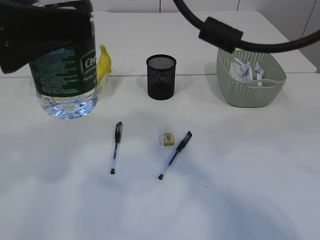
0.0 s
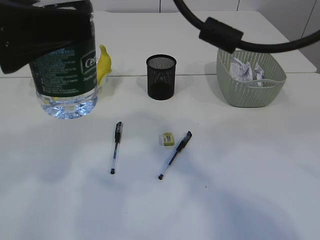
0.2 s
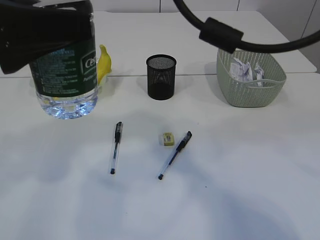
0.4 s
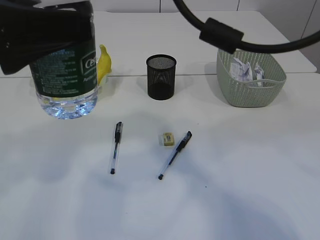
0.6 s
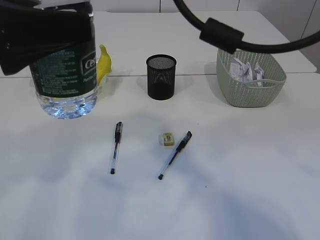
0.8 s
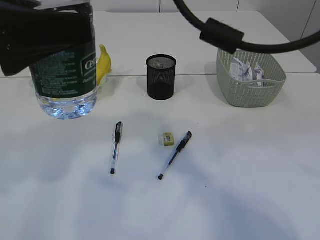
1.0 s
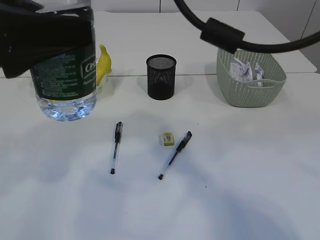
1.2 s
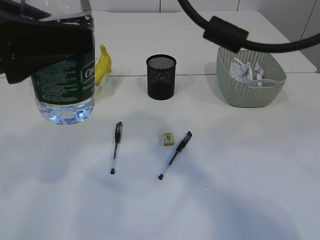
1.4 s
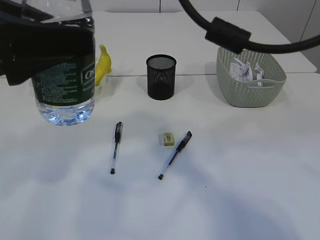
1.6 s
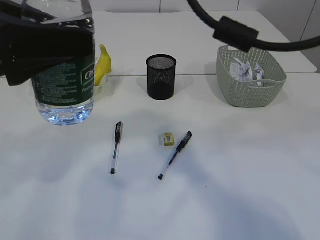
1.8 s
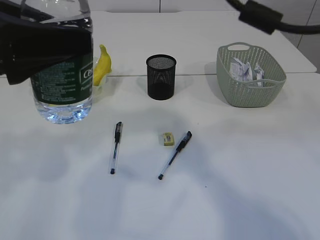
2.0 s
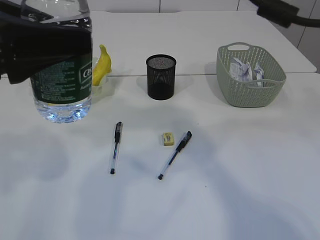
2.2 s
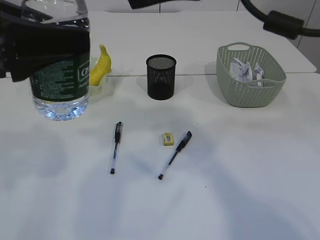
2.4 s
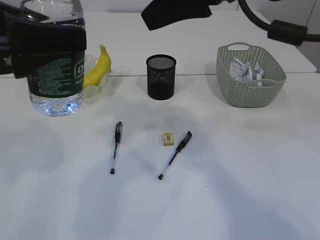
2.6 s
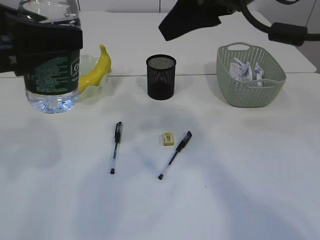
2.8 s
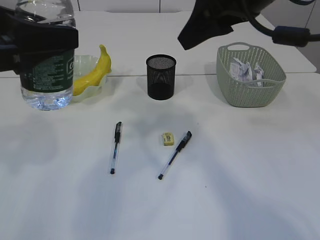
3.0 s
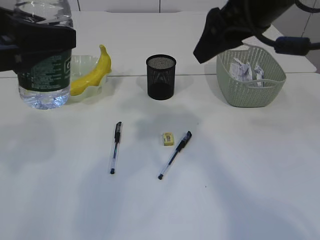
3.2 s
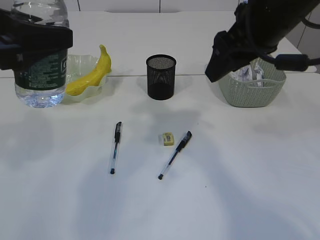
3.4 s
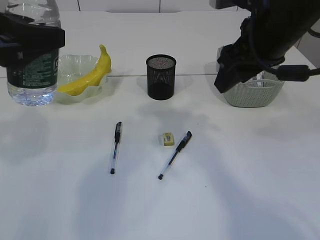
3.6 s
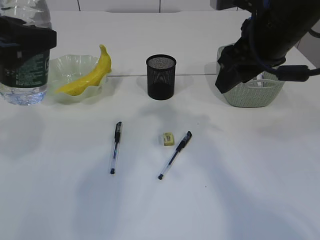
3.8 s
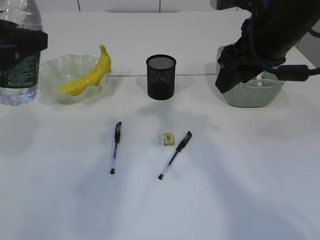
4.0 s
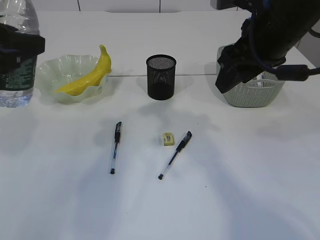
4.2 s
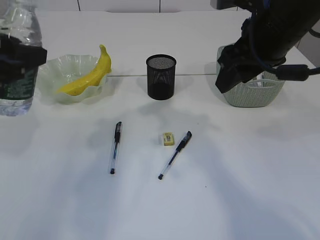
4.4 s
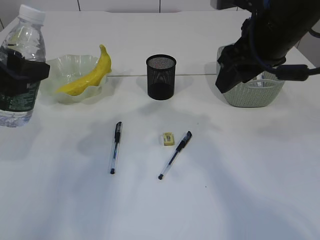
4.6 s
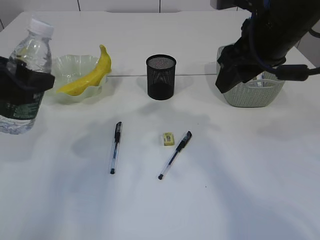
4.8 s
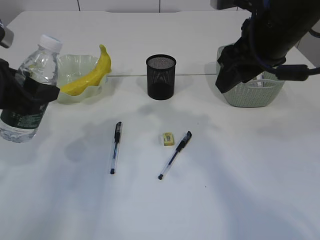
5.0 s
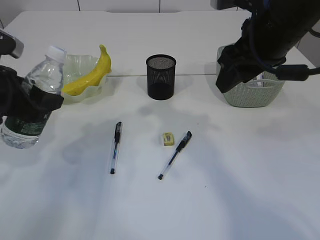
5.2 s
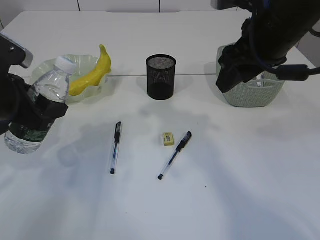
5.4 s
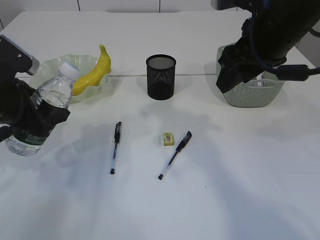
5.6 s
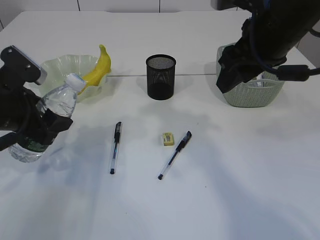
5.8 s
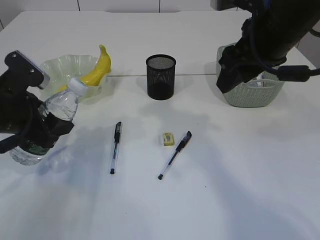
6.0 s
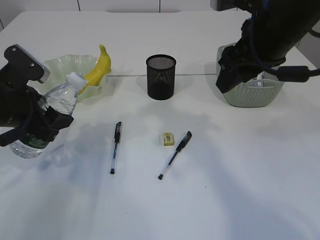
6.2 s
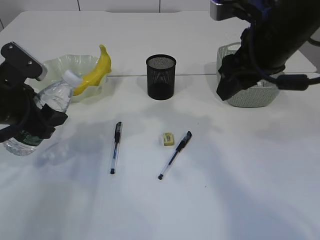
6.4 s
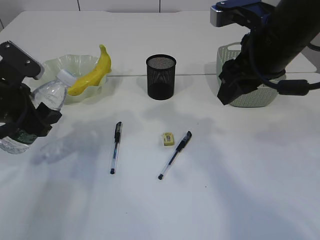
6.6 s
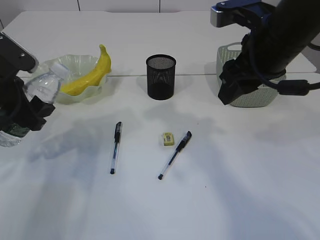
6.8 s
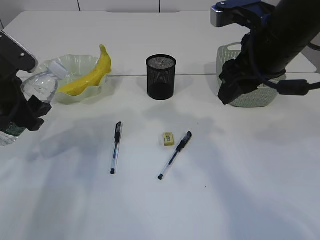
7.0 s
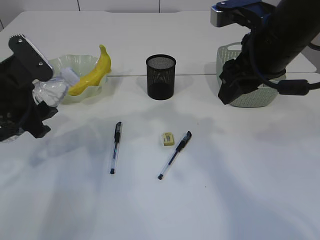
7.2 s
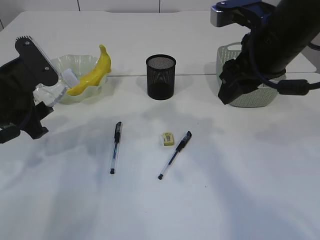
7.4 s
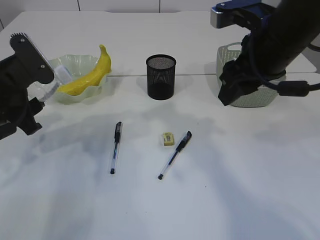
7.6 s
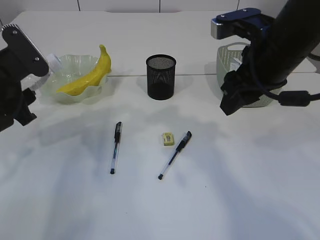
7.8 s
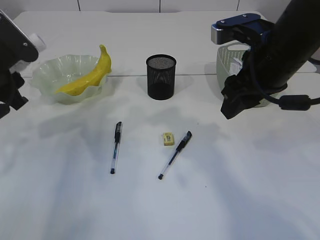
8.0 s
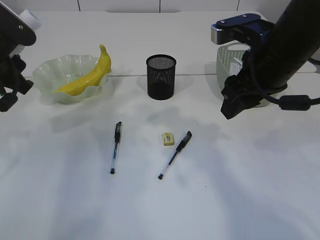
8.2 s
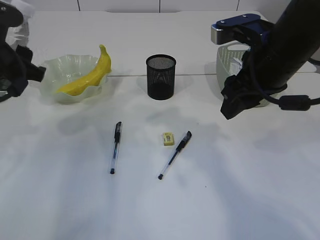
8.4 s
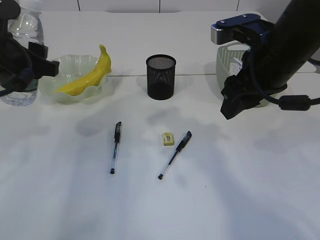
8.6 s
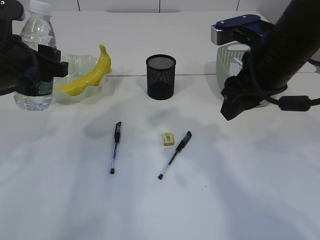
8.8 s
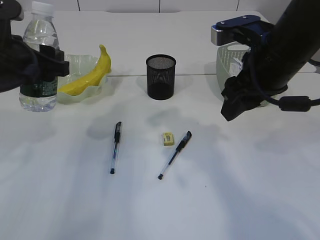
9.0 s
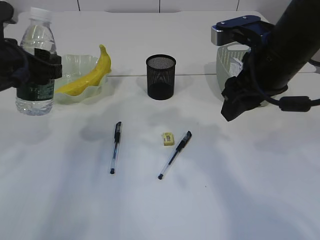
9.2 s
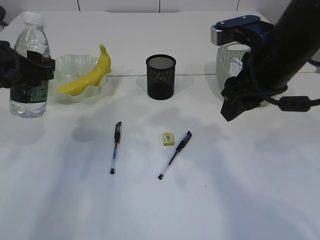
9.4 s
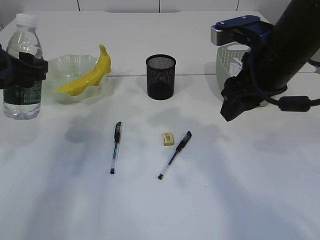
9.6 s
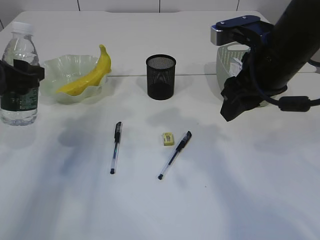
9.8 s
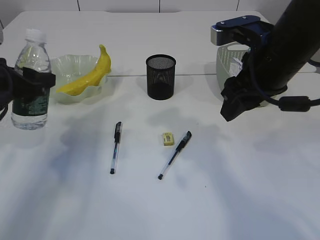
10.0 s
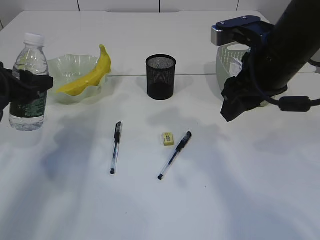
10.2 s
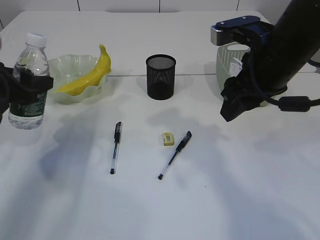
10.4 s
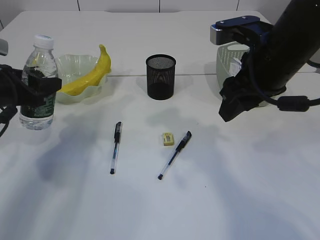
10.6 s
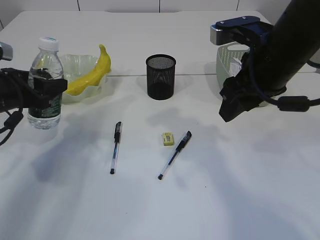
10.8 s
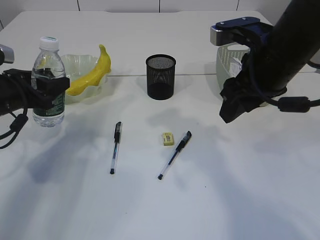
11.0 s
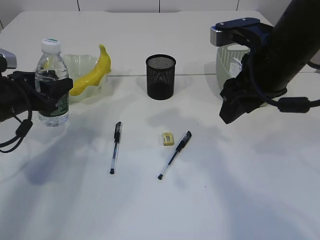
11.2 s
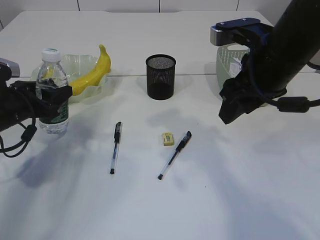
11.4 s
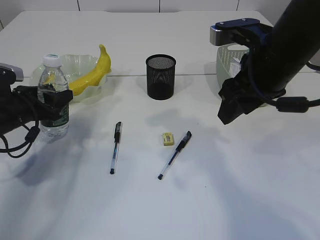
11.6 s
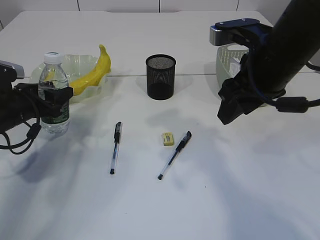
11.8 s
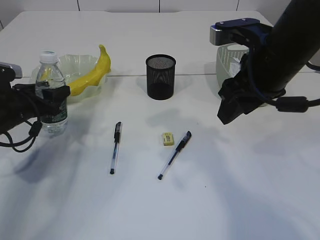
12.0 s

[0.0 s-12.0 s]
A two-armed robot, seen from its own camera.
Step, 0.0 to 2.0 s: transfer the bottle to the left arm.
0.0 to 1.6 s: The right gripper opens.
1.6 to 3.0 s: The right gripper is displaced to the right and forward by roughly 10 cm.
3.0 to 4.4 s: The right gripper heads downward, covering approximately 5 cm.
4.4 to 6.0 s: The left gripper is displaced downward by approximately 10 cm.
9.0 to 10.4 s: The left gripper travels to the left by about 5 cm.
10.4 to 12.0 s: The left gripper goes some 10 cm downward.

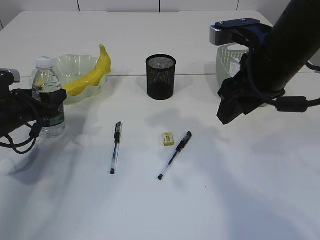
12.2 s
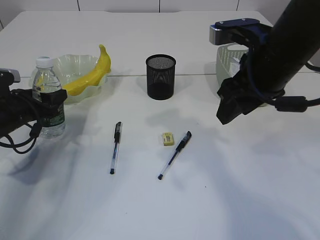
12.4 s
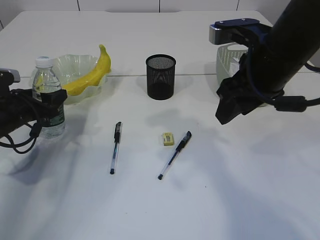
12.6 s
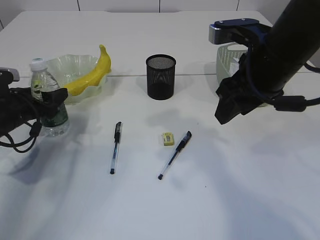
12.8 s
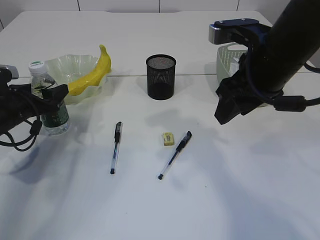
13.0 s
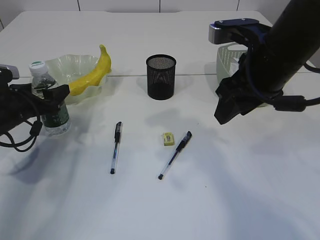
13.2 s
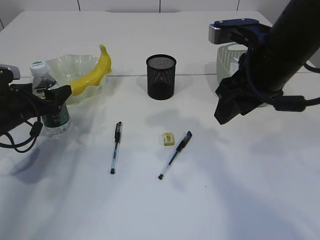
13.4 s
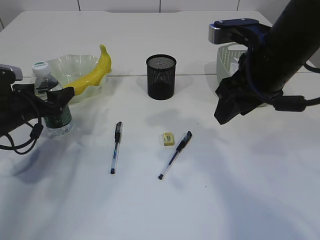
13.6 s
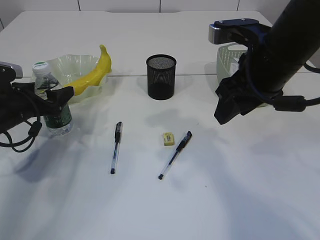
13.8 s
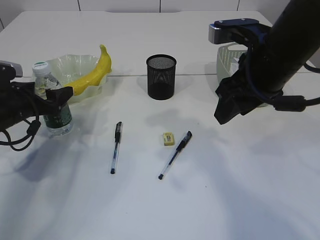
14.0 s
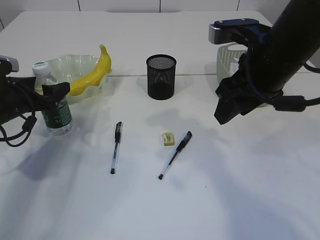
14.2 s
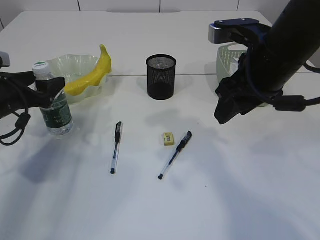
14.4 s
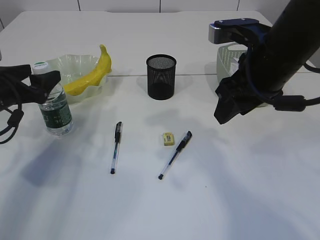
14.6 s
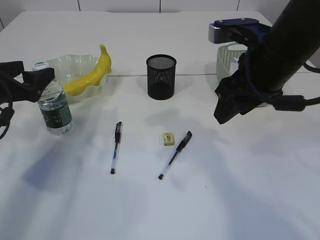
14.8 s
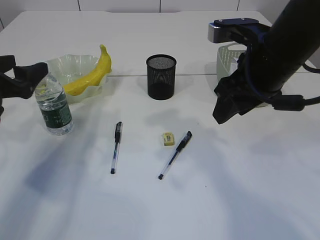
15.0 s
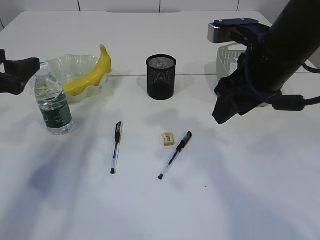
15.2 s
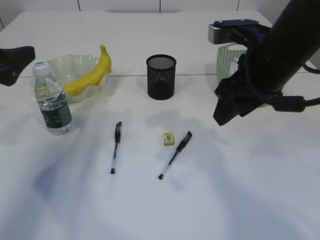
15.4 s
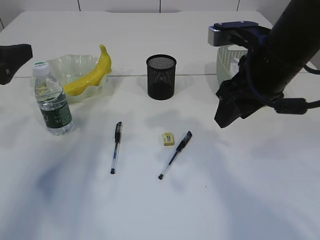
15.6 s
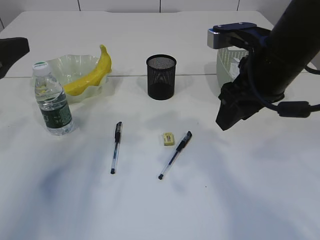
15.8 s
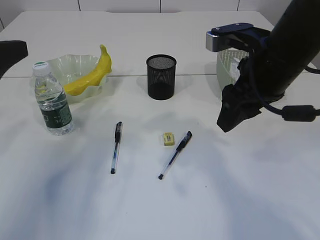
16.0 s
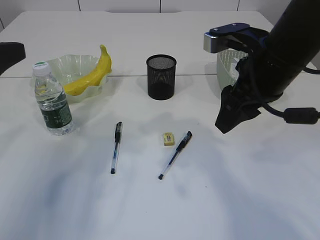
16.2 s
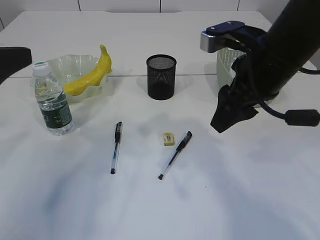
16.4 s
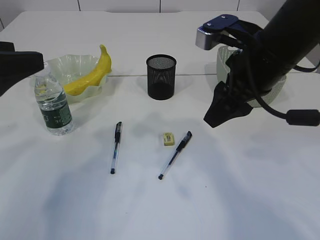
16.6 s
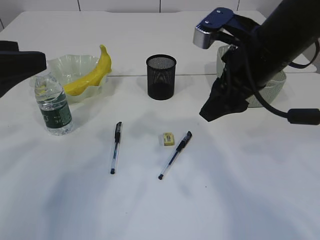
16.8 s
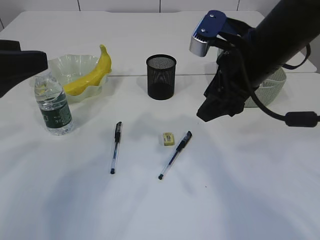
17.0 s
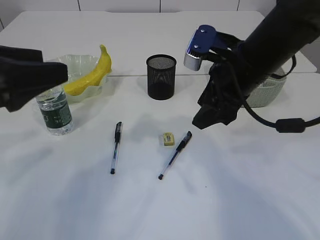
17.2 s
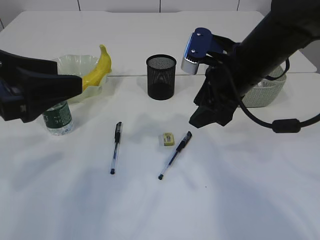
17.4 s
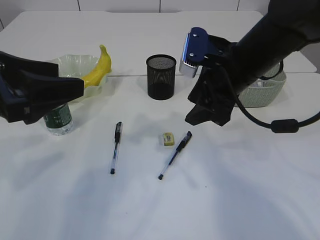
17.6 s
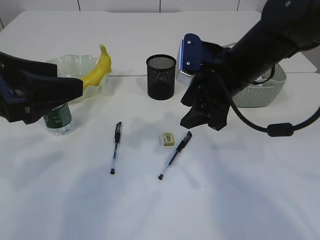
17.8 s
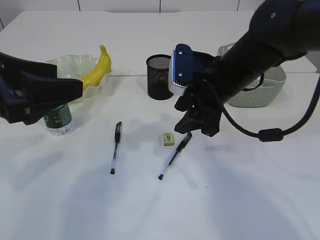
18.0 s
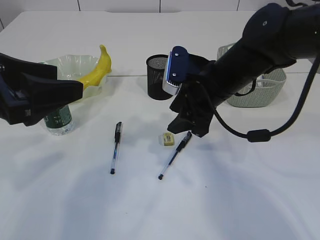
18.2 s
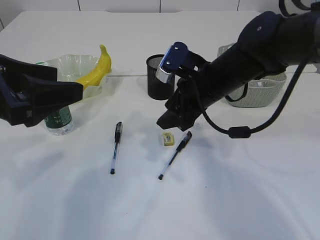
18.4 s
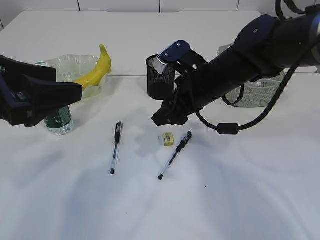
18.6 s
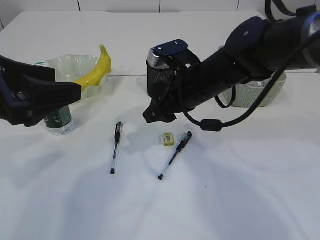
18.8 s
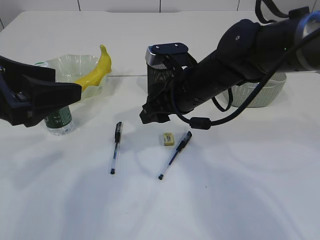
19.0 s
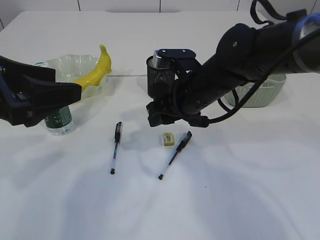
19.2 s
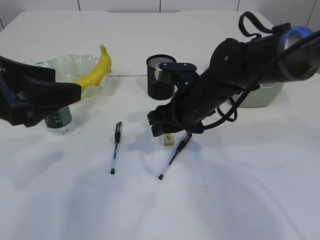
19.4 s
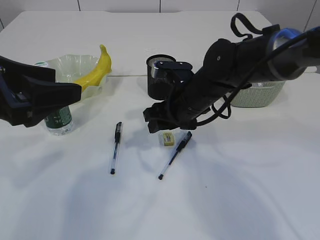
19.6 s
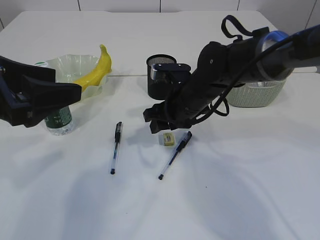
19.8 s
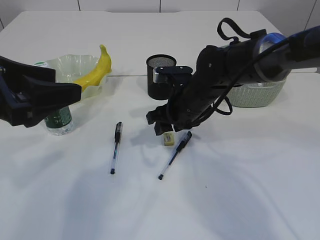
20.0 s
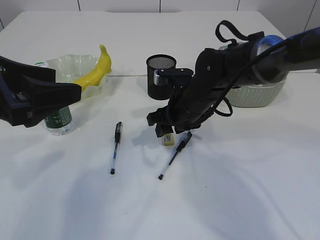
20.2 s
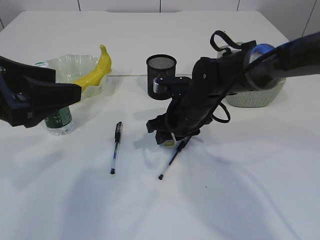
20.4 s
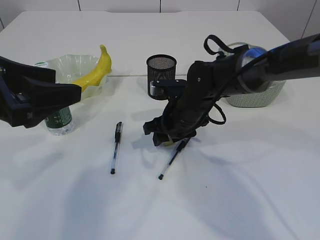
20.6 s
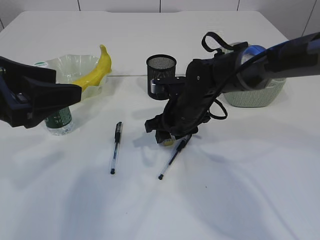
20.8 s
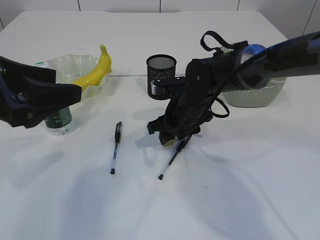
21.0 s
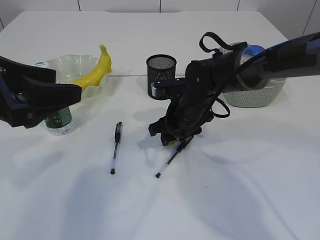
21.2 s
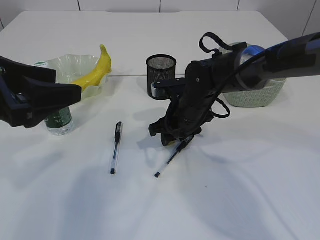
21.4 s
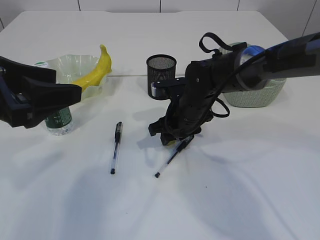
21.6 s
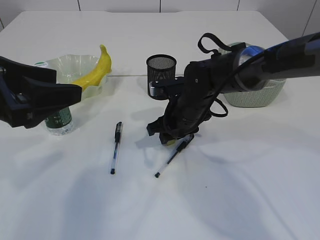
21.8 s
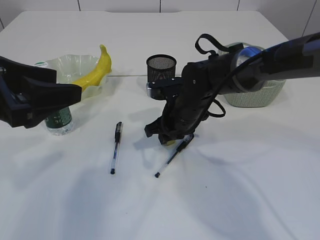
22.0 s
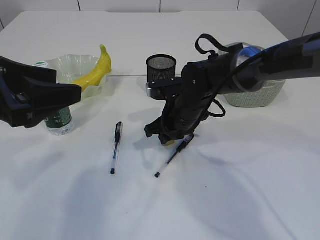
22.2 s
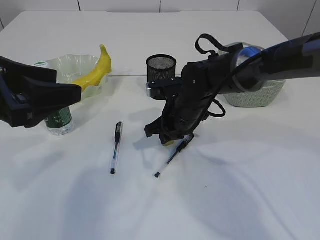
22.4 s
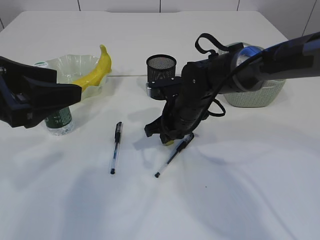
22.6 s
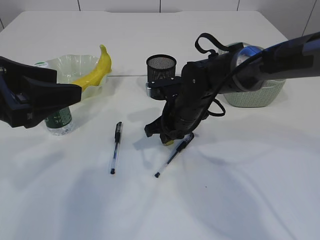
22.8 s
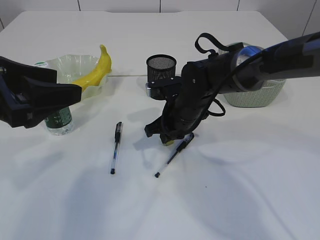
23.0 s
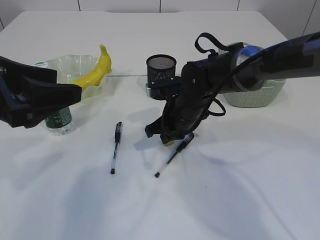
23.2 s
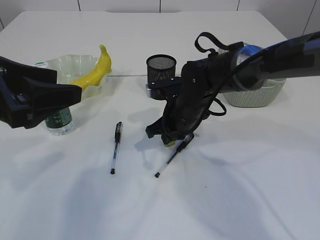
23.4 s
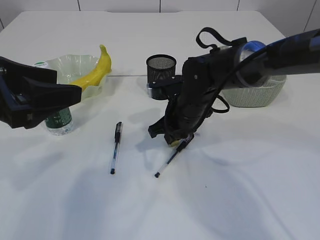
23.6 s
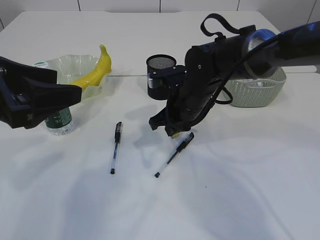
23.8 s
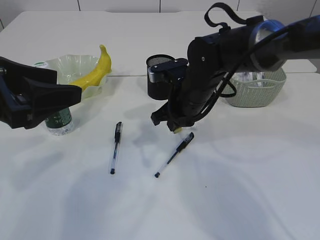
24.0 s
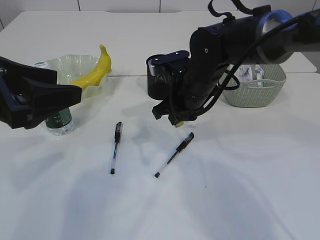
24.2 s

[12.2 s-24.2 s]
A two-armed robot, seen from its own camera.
Step, 12.2 to 15.2 s: Place the bottle.
Step, 15.4 to 24.0 s: Pick up the eraser.
12.2 to 13.8 s: The grippers stay close to where they were, moving slightly.
13.8 to 15.2 s: The left gripper is displaced upward and backward by approximately 10 cm.
15.2 to 16.6 s: The left gripper is displaced backward and upward by some 10 cm.
16.6 to 18.2 s: The right gripper moves downward and forward, approximately 10 cm.
18.2 to 19.8 s: The right gripper heads downward, covering approximately 5 cm.
19.8 to 21.2 s: The grippers move only a little.
21.2 to 22.6 s: The right gripper closes its fingers.
22.6 to 24.2 s: The right gripper travels upward by about 5 cm.
